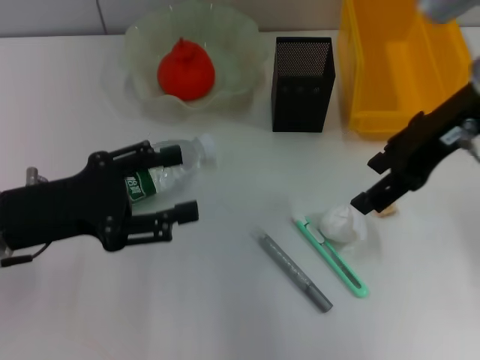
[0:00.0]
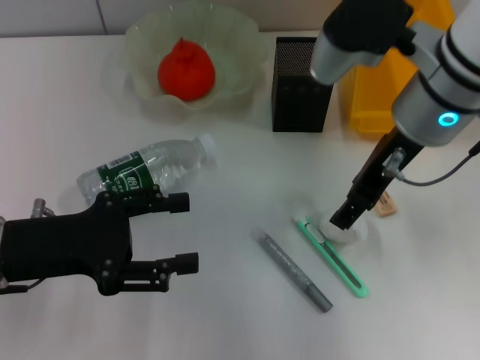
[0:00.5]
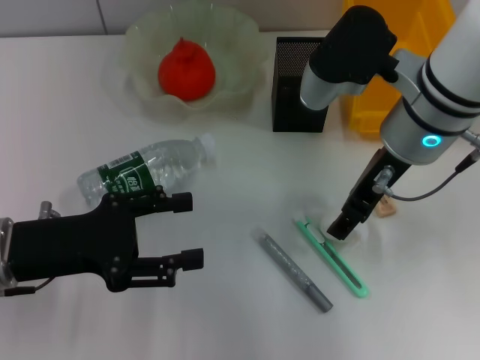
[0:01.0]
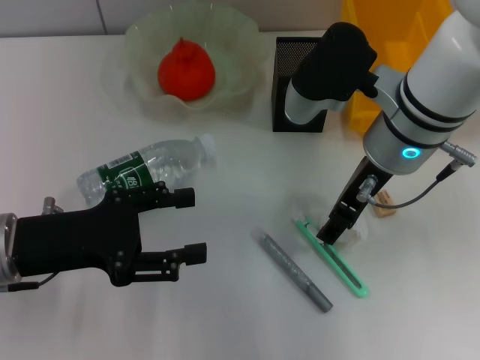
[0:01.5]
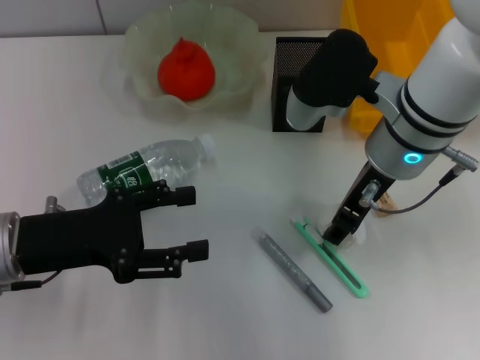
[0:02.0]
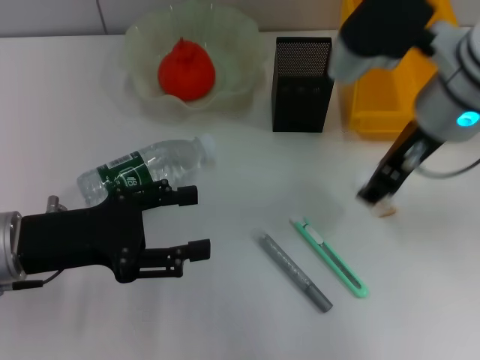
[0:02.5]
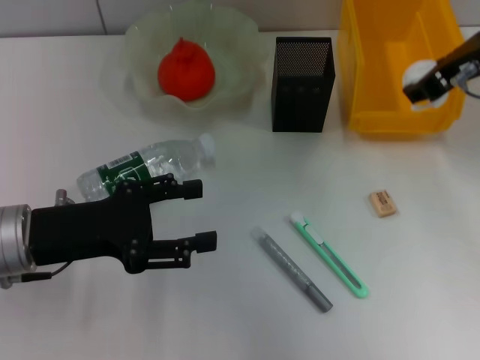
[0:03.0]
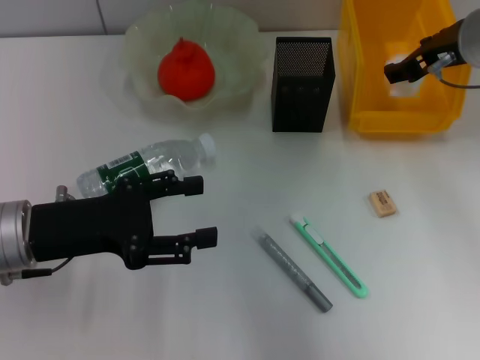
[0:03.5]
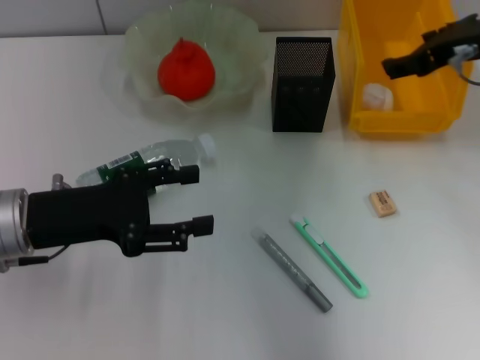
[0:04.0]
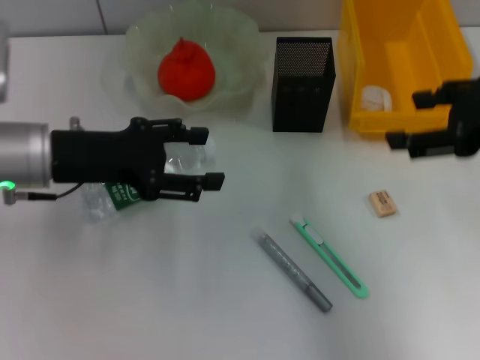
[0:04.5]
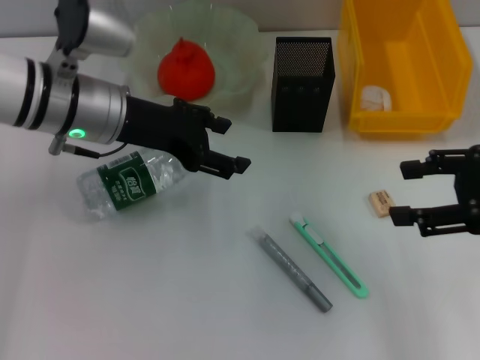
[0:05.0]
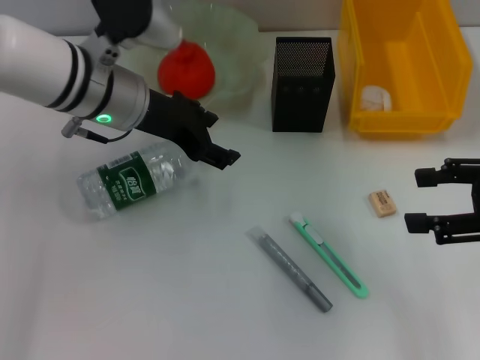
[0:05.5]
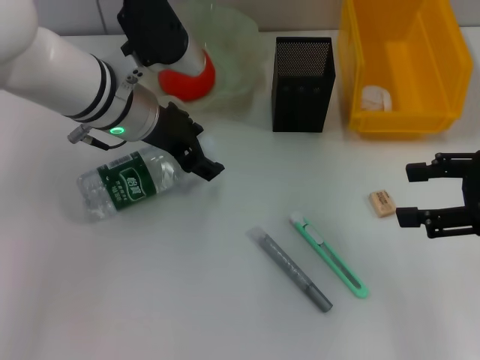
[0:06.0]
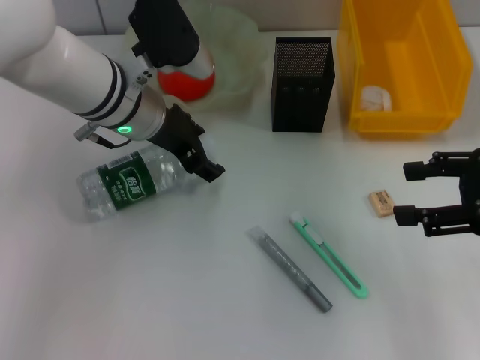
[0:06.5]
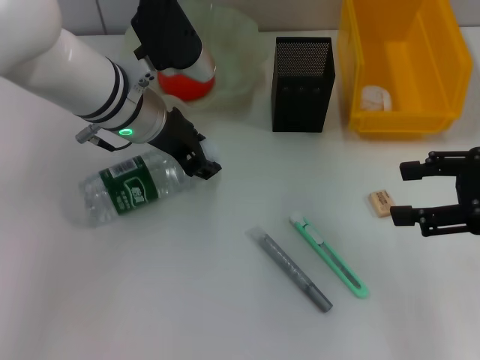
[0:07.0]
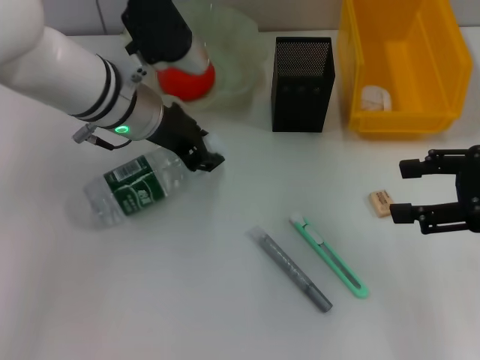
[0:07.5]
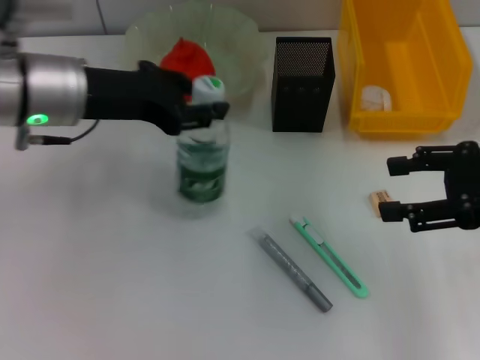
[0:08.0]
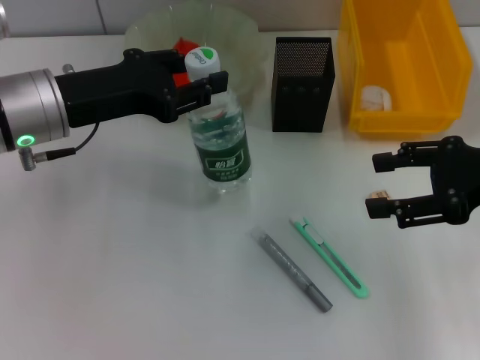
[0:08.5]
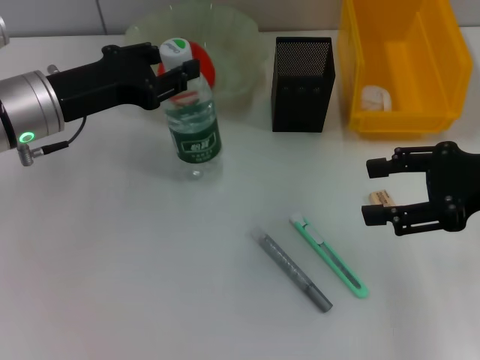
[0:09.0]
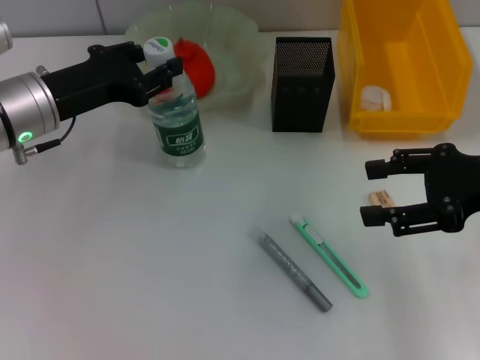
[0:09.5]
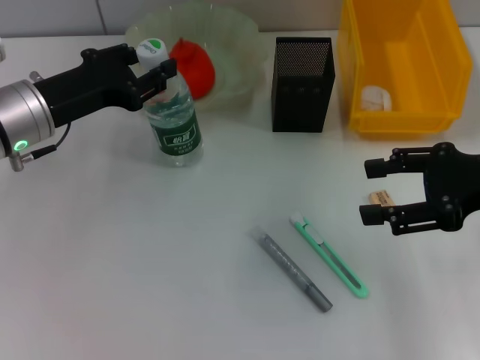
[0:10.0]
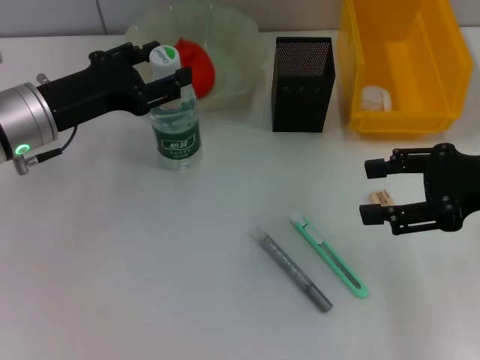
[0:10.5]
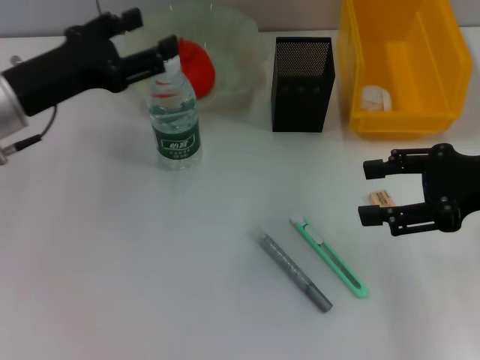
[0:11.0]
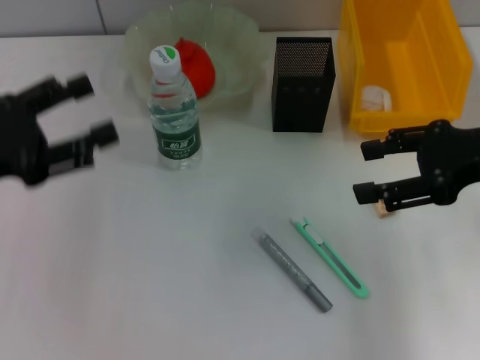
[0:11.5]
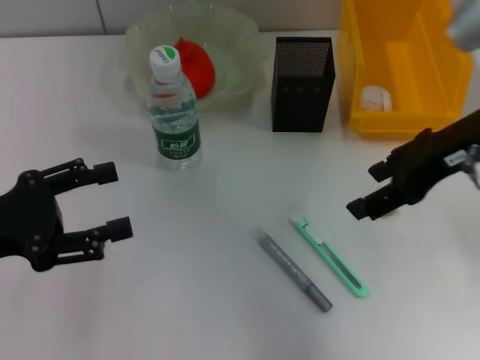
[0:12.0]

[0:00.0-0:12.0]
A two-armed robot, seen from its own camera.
Step, 0:02.0 to 0:03.5: Place the paper ball into the trash can with the right hand.
Step, 0:04.0 to 0:07.0: Grab the water bottle with the left hand.
Step, 0:07.5 to 0:10.5: Place the water bottle on the table with the left hand.
0:00.0 to 0:02.0: The right gripper goes about 10 cm downward and to the left.
0:02.0 to 0:04.0: The right gripper heads to the right and upward, covering about 10 cm.
0:04.0 to 0:06.0: The left gripper travels forward and to the right by about 15 cm; the right gripper moves backward and to the right, some 15 cm.
0:06.0 to 0:08.0: The left gripper goes some 5 cm to the left, and closes.
0:08.0 to 0:10.0: The left gripper moves downward, roughly 5 cm.
0:10.0 to 0:12.0: The right gripper shifts approximately 10 cm to the left and upward. The left gripper is displaced backward and to the left by about 15 cm, and opens.

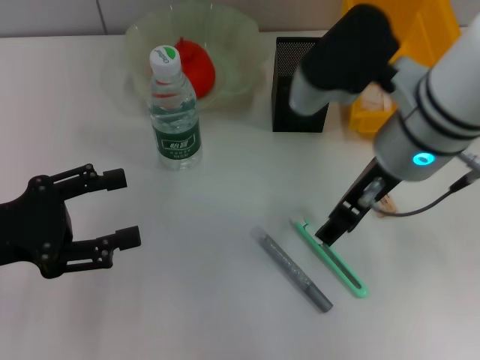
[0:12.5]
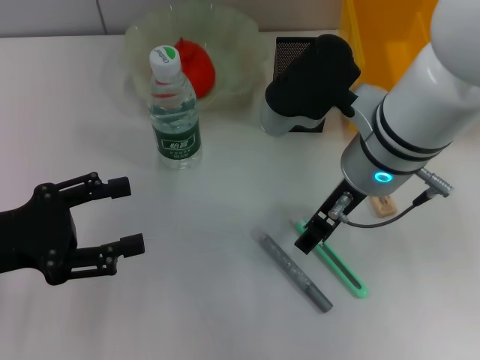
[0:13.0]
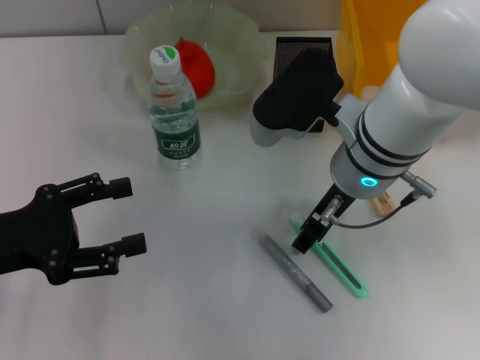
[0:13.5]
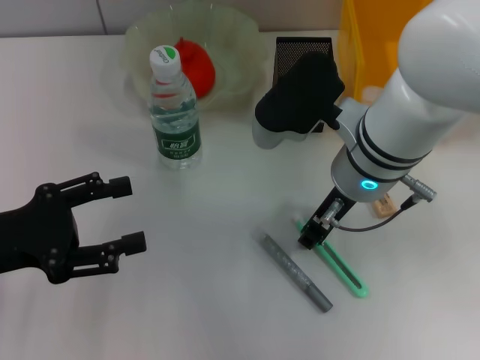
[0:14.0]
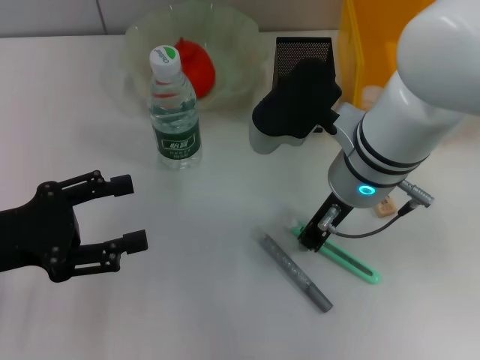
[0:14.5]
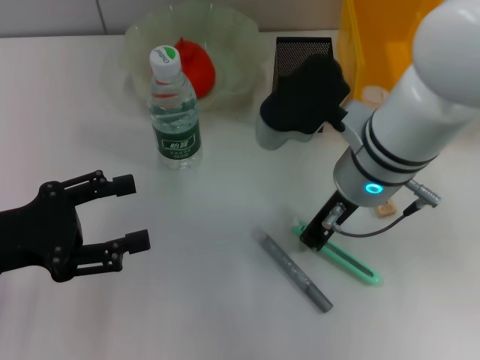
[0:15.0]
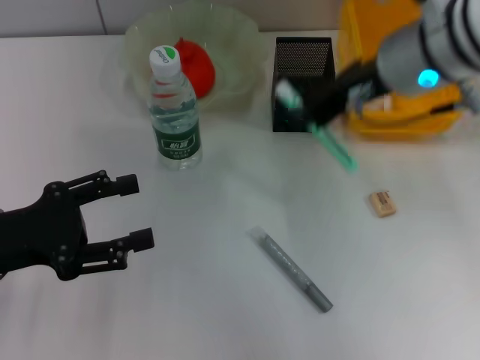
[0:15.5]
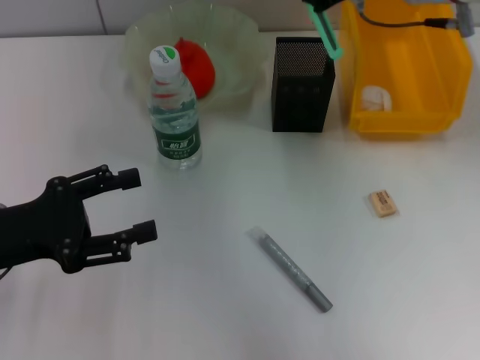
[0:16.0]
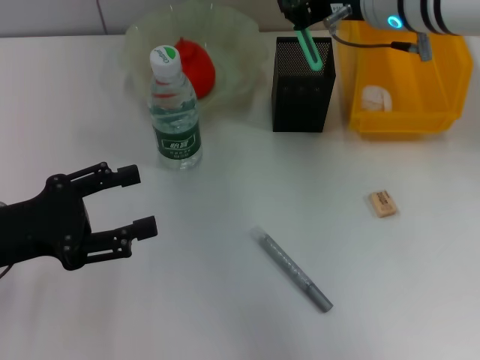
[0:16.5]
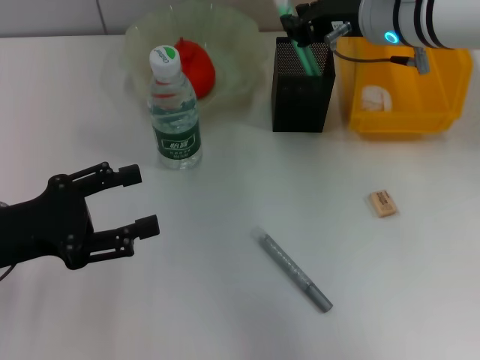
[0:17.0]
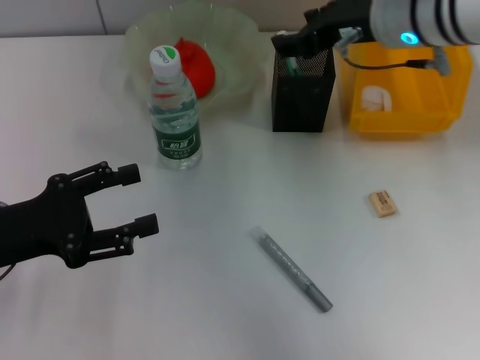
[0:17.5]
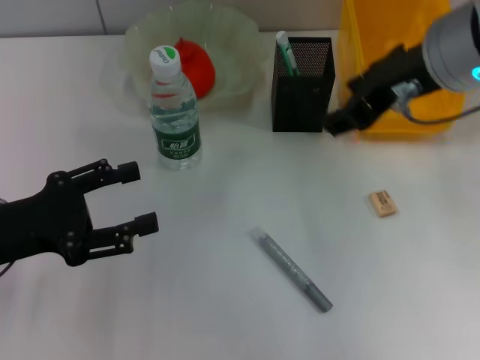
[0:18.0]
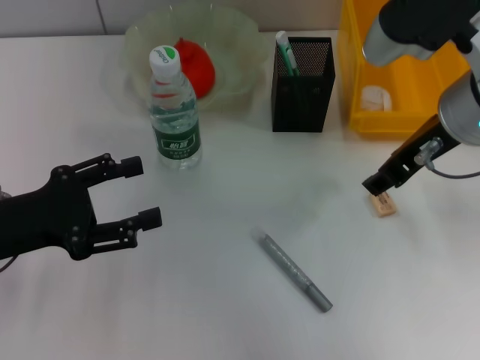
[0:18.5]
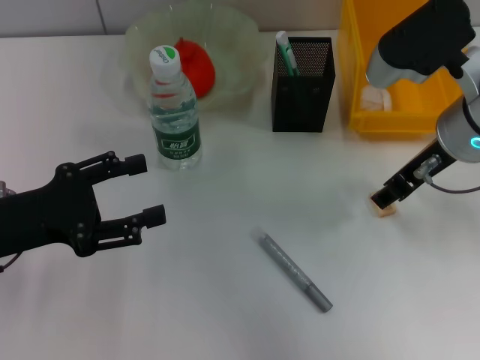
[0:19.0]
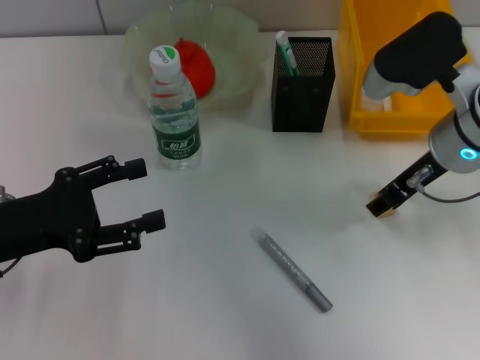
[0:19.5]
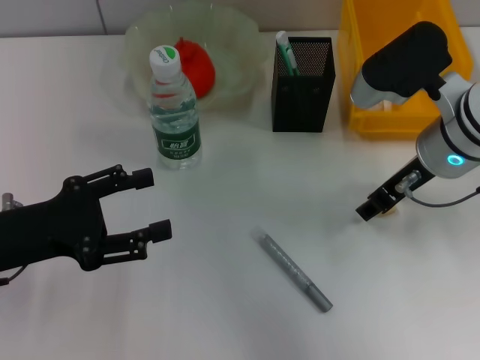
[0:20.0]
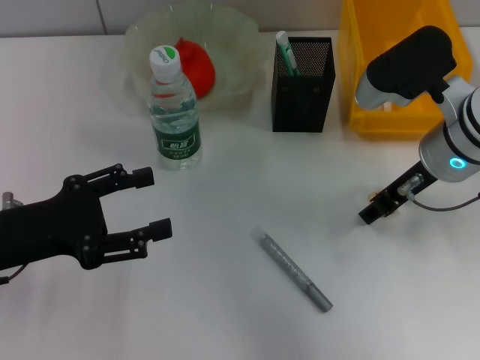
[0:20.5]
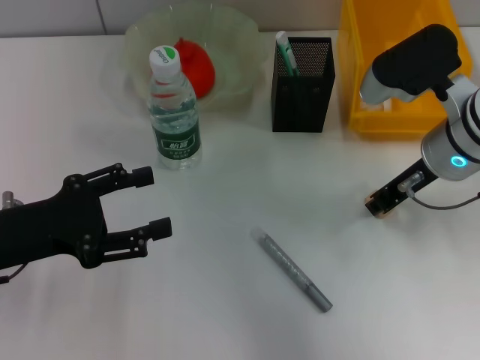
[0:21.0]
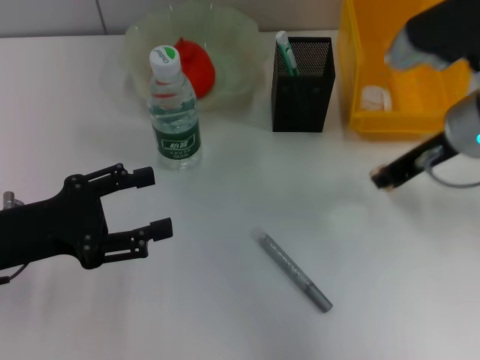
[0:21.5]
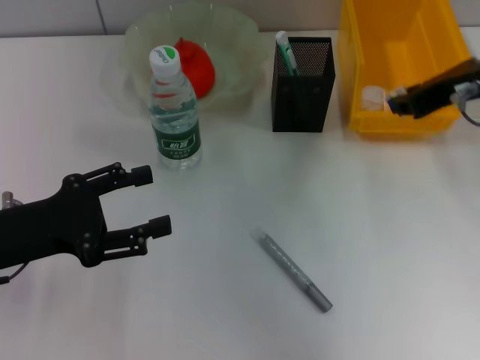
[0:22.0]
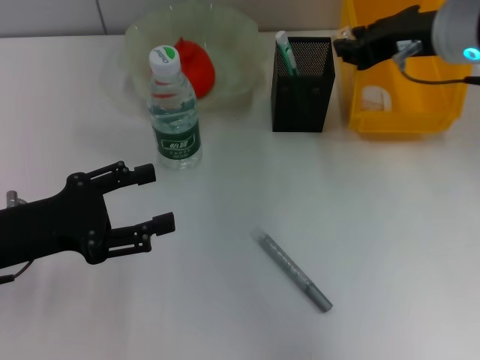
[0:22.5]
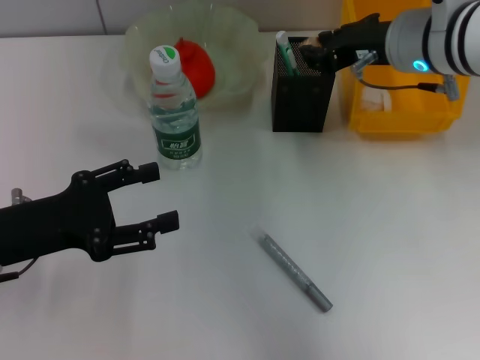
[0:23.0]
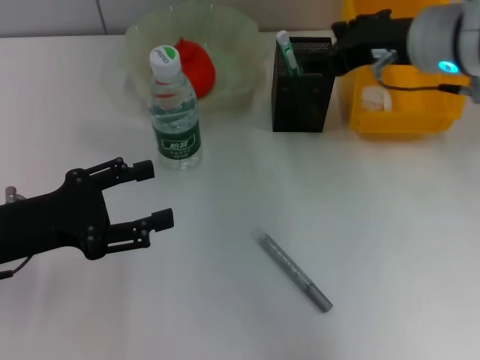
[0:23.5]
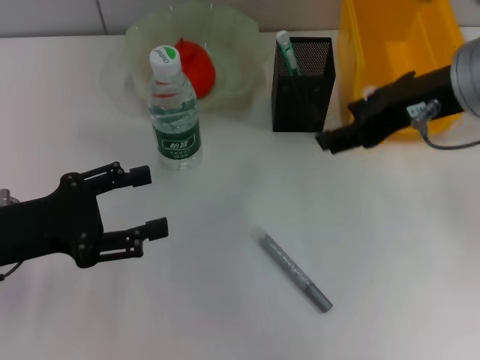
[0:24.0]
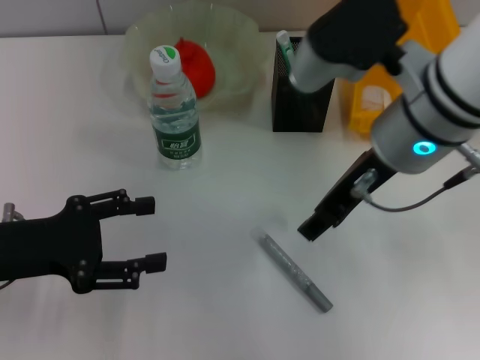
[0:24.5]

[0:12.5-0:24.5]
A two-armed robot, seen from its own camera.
Step, 0:12.5 to 0:14.5: Grab the blue utility knife with the right hand.
Step, 0:15.0 to 0:17.0: Place the blue utility knife into the pen holder with the right hand.
Step, 0:17.5 to 0:21.0: Grab the eraser with the right hand.
Step, 0:21.5 to 0:23.0: Put the eraser into the pen holder with the right hand.
0:12.5 to 0:14.5: The right gripper shifts some 5 cm downward, and closes its fingers.
0:14.5 to 0:16.5: The right gripper shifts approximately 10 cm forward and upward.
0:16.5 to 0:18.5: The right gripper shifts about 10 cm backward, and opens its fingers.
0:18.5 to 0:20.5: The right gripper heads downward, covering roughly 5 cm.
0:20.5 to 0:22.5: The right gripper shifts approximately 5 cm upward, and closes up.
0:22.5 to 0:24.5: The right gripper moves to the left and backward, approximately 10 cm, and opens its fingers.

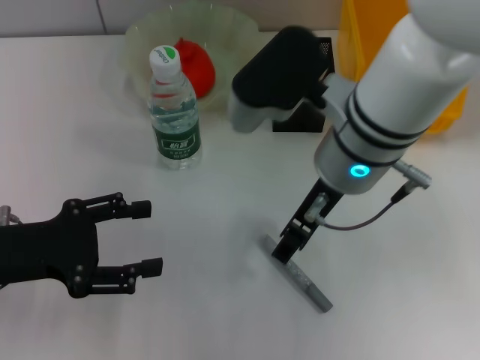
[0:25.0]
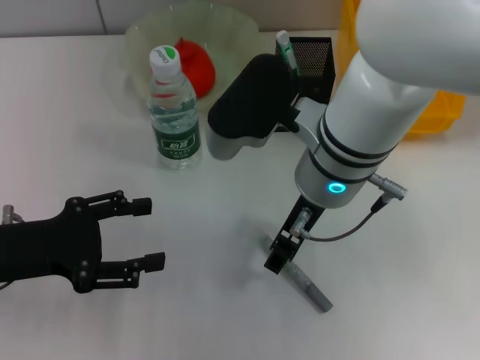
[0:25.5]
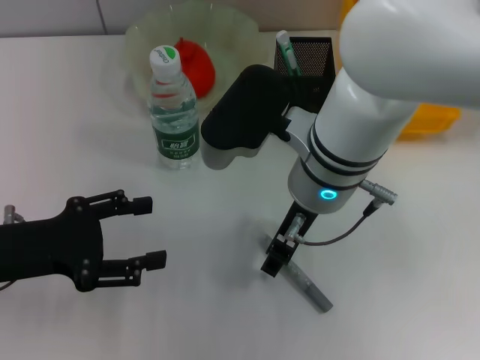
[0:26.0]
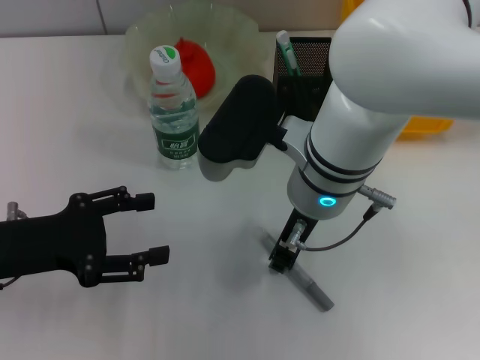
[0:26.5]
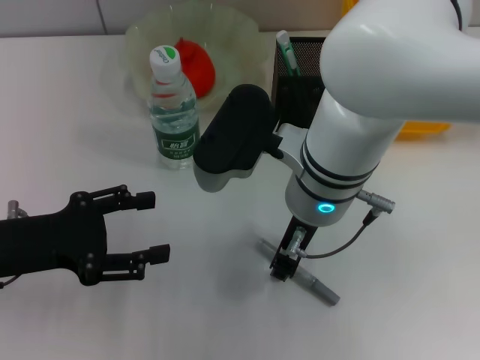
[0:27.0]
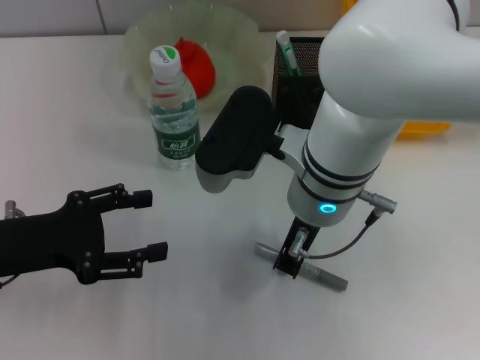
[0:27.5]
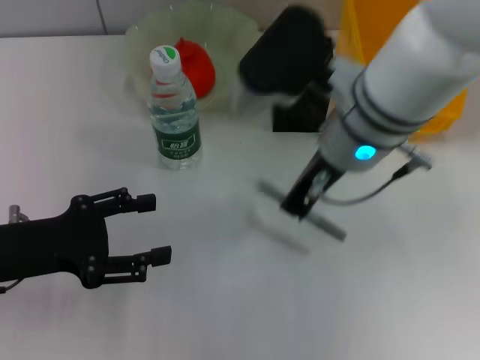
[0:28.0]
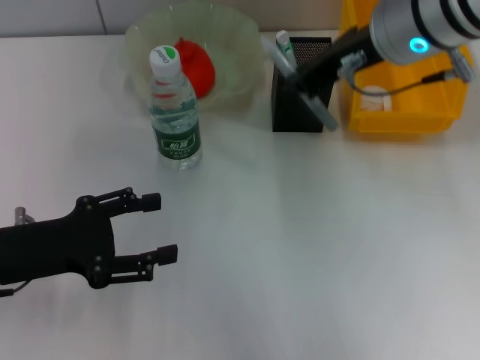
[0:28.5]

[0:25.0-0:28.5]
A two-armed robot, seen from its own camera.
Step, 0:25.0 to 0:27.5: Grab the gray glue with the right hand.
0:25.0 to 0:27.0: The right gripper closes its fingers.
0:27.0 to 0:28.5: The right gripper is displaced upward, to the right and forward by about 15 cm, and closes its fingers.
